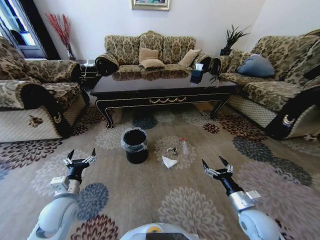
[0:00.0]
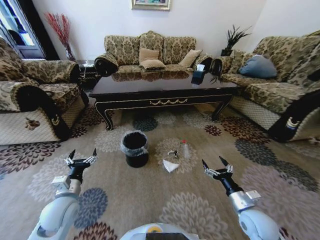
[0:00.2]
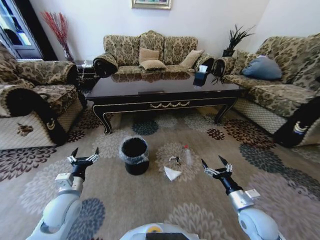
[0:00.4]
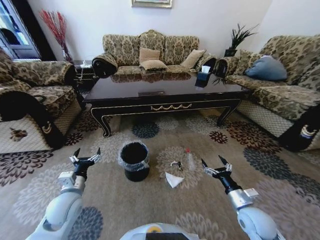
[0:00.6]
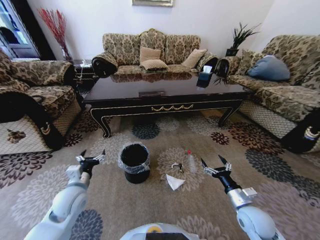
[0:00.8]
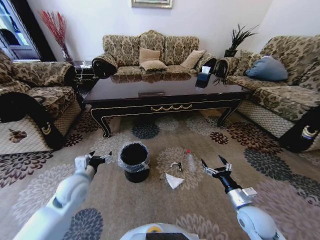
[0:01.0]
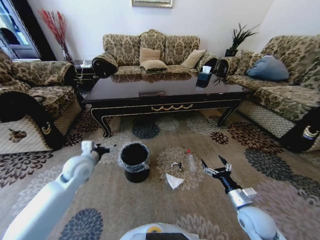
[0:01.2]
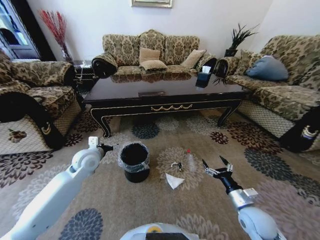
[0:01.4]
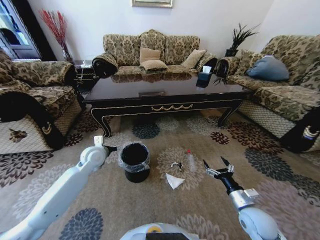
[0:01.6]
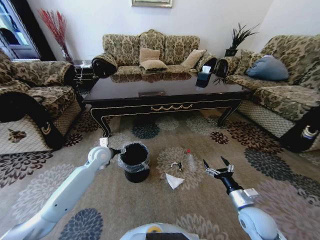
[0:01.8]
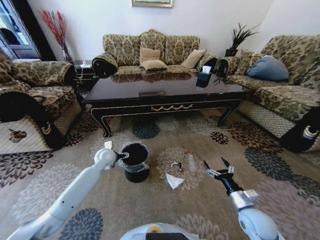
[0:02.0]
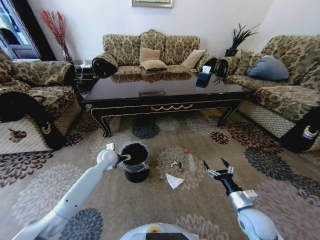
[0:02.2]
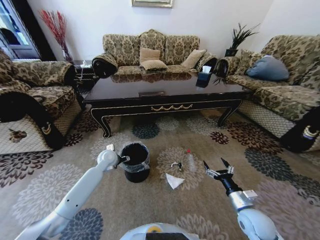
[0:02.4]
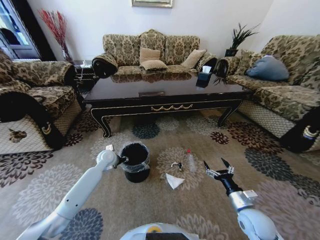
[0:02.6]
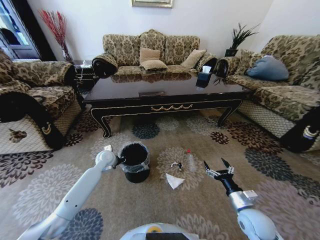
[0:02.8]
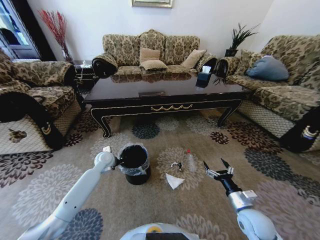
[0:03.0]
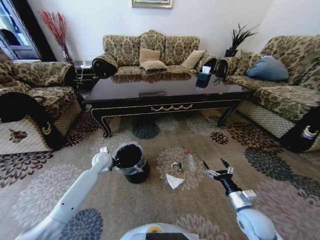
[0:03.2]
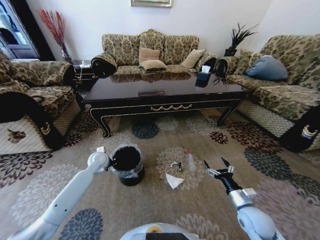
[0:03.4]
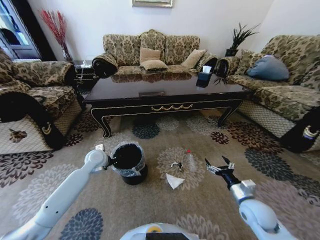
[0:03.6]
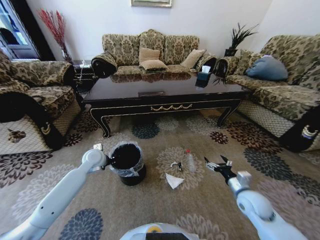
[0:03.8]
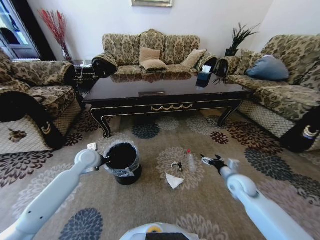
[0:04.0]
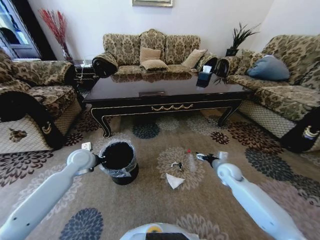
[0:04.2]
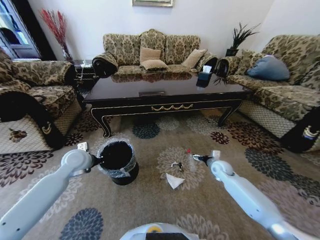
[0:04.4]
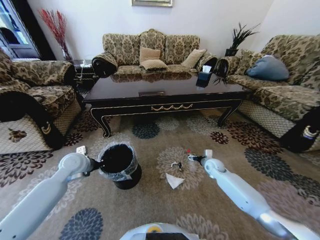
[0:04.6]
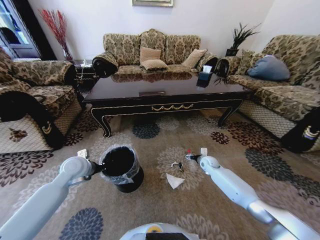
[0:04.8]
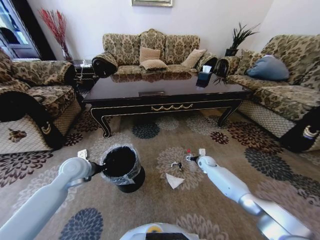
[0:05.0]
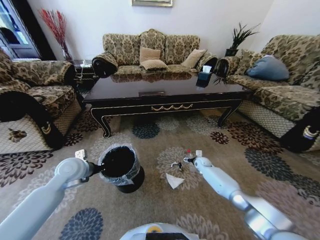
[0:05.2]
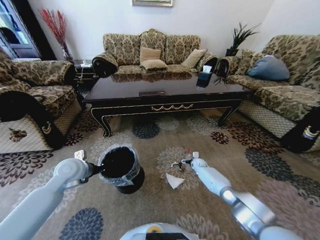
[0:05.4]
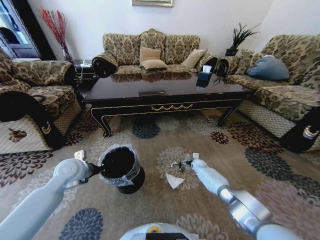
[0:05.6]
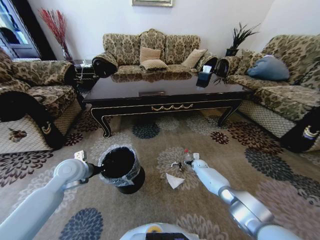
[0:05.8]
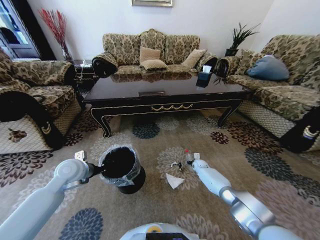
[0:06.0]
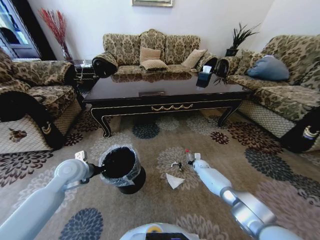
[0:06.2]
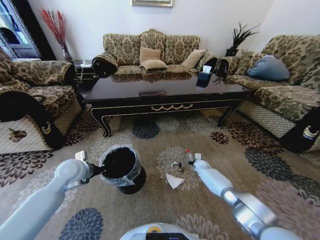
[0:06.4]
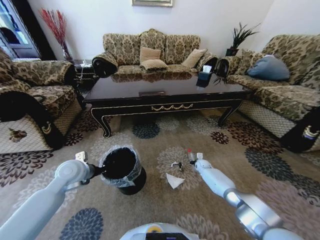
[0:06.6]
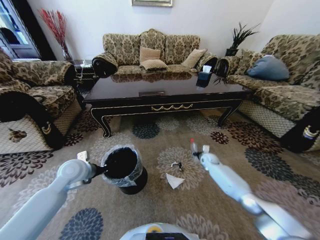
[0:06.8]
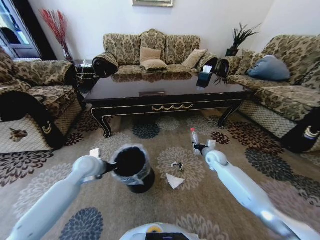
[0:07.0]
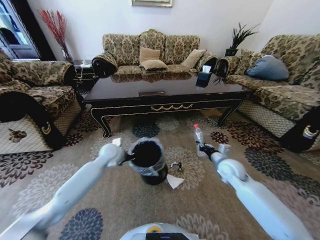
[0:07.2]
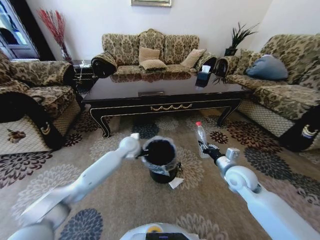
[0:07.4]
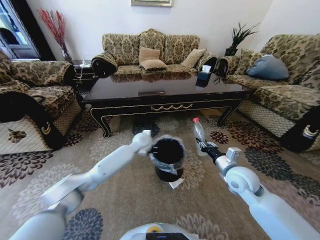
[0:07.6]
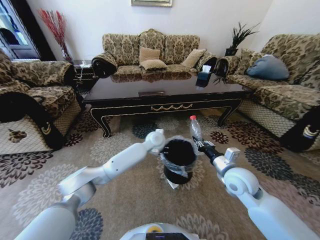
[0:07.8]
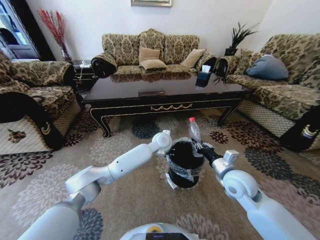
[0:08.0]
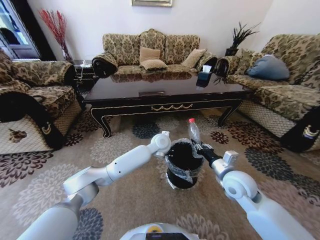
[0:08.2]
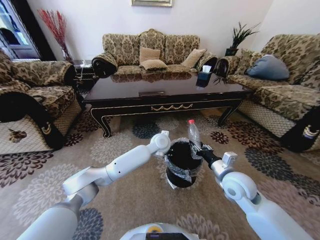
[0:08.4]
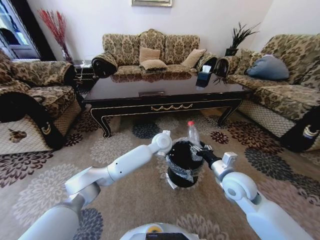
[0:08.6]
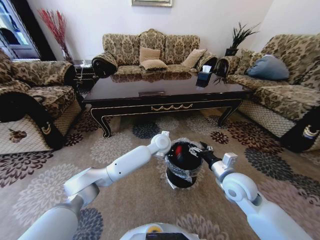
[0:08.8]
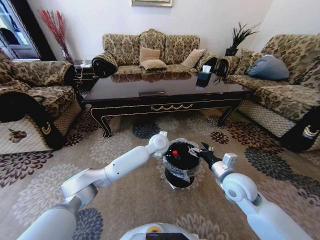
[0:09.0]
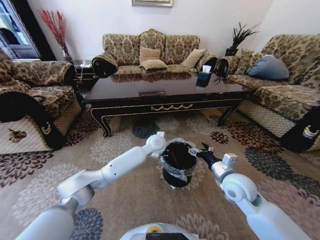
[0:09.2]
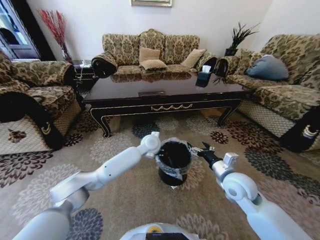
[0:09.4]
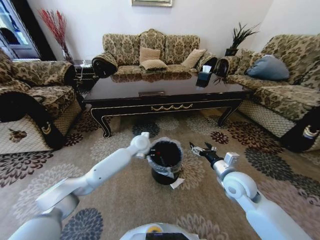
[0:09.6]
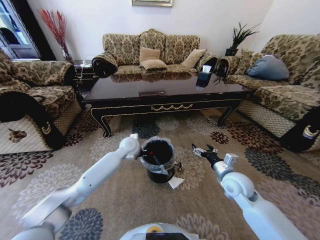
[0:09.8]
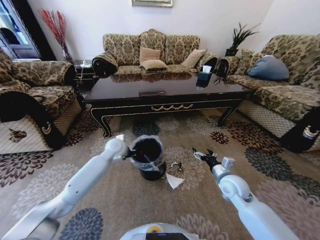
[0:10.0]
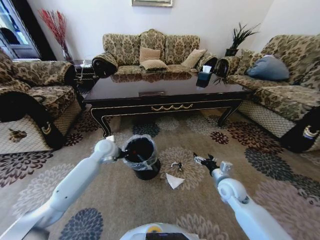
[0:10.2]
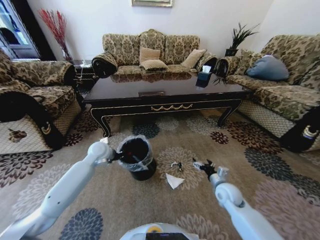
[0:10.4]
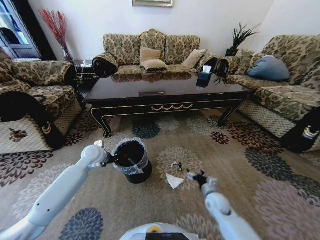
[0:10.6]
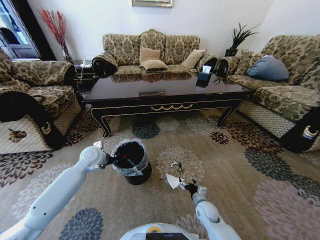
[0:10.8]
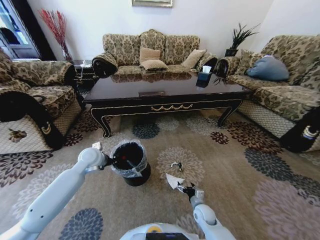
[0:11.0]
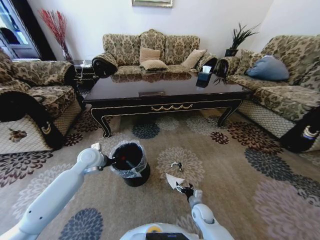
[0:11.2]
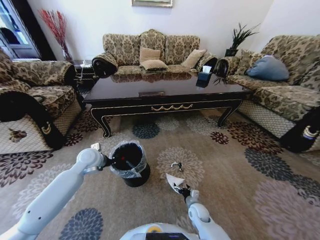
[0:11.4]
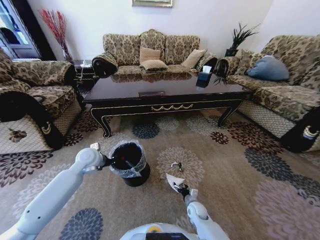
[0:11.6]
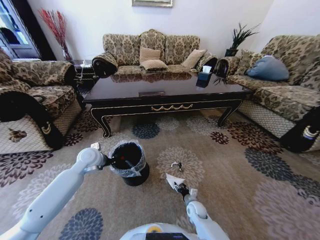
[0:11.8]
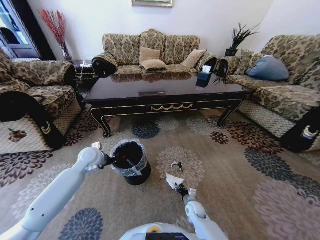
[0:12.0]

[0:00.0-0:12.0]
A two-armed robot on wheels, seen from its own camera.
Task of the whole recording: Move to the front of the table and pick up the trash from the floor, then place it into the trash bin.
0:00.0 to 0:01.6: The left gripper shifts about 20 cm forward.
0:01.6 to 0:03.0: The left gripper travels downward by some 10 cm, and closes.
0:03.0 to 0:04.4: The right gripper is displaced forward by some 25 cm, while the left gripper is displaced upward, backward and to the left by about 15 cm.
0:04.4 to 0:06.0: The right gripper shifts about 15 cm downward and forward, and closes up.
0:06.0 to 0:07.6: The left gripper moves to the right and forward, about 30 cm, while the right gripper travels upward and backward by some 35 cm.
0:07.6 to 0:09.0: The right gripper opens up; the left gripper goes about 10 cm to the right.
0:09.0 to 0:10.4: The left gripper is displaced to the left by approximately 30 cm; the right gripper is displaced downward by approximately 15 cm.
0:10.4 to 0:12.0: The right gripper is displaced downward and to the left by about 20 cm, and closes its fingers.

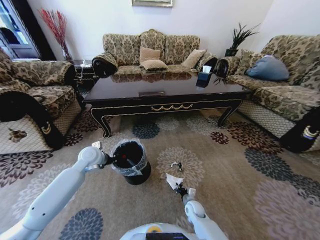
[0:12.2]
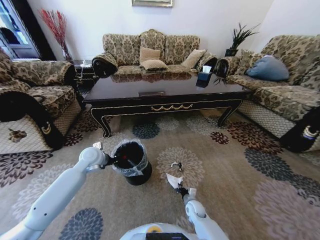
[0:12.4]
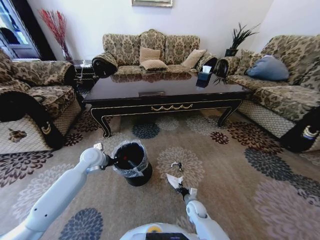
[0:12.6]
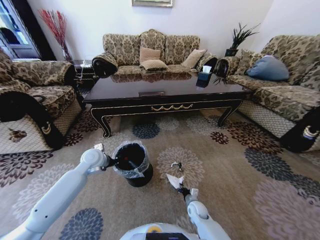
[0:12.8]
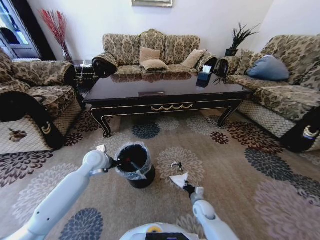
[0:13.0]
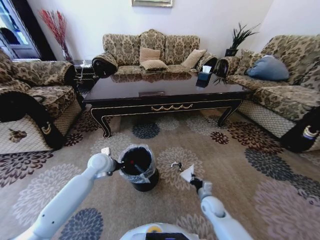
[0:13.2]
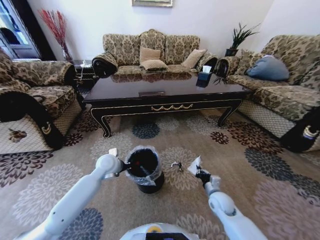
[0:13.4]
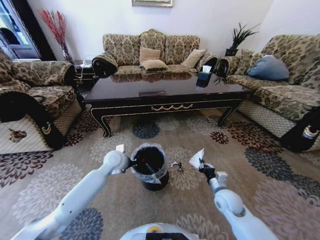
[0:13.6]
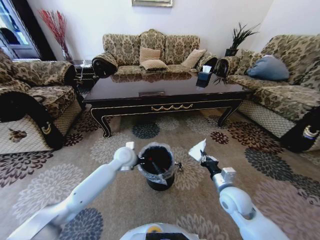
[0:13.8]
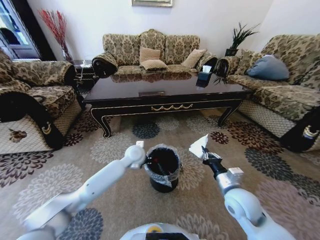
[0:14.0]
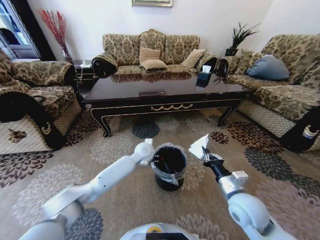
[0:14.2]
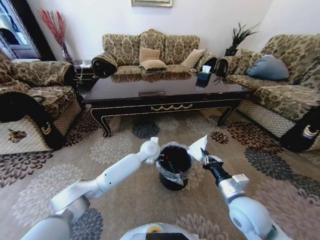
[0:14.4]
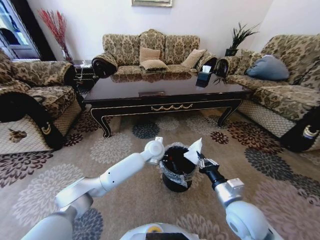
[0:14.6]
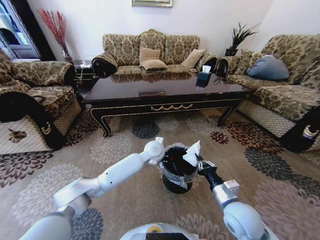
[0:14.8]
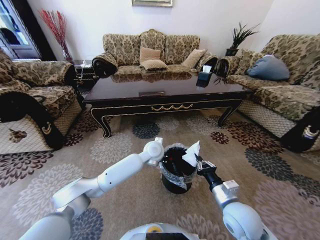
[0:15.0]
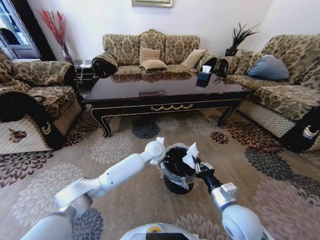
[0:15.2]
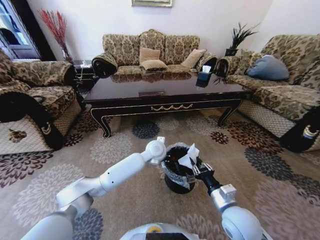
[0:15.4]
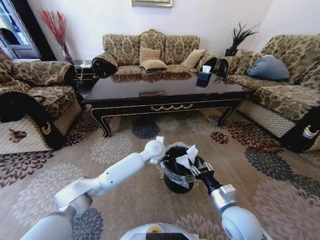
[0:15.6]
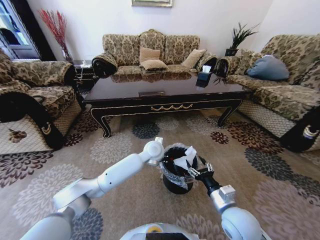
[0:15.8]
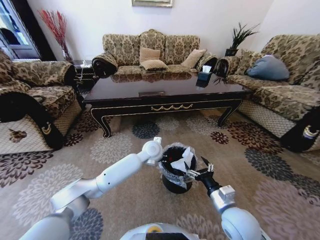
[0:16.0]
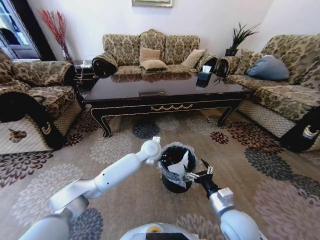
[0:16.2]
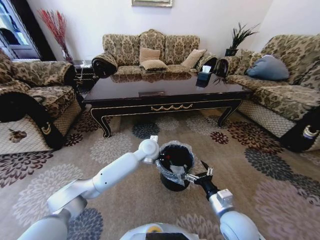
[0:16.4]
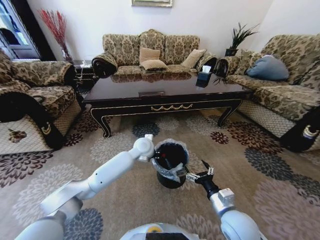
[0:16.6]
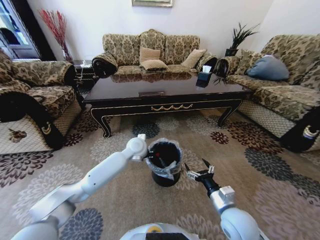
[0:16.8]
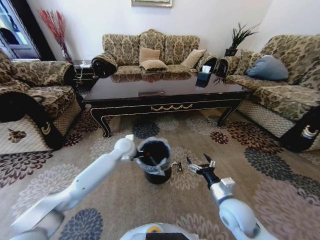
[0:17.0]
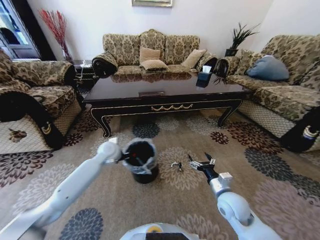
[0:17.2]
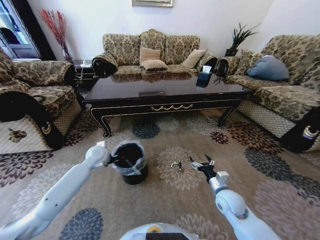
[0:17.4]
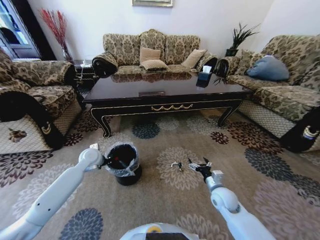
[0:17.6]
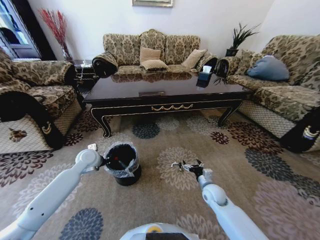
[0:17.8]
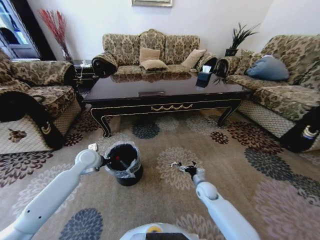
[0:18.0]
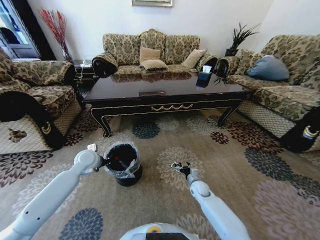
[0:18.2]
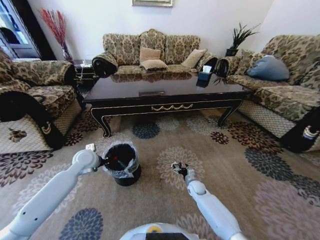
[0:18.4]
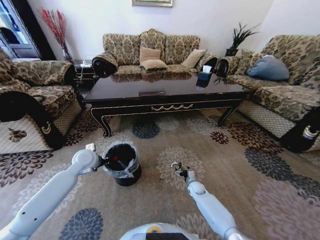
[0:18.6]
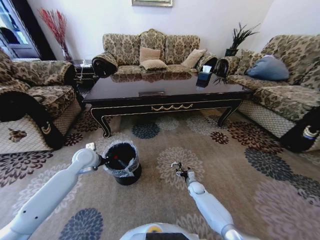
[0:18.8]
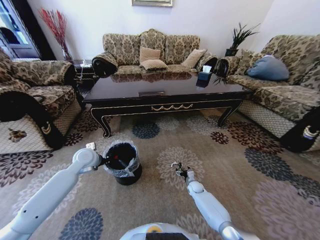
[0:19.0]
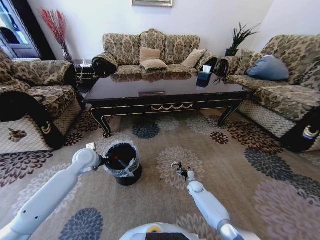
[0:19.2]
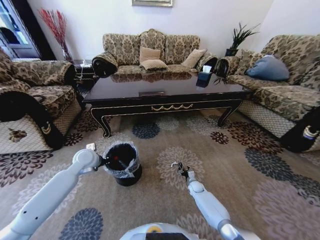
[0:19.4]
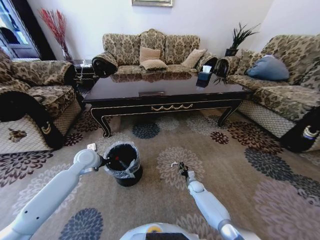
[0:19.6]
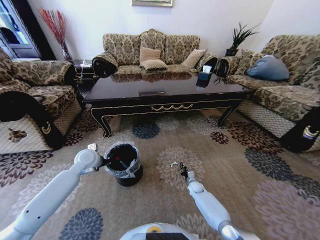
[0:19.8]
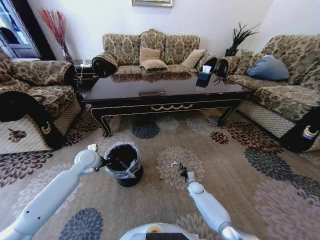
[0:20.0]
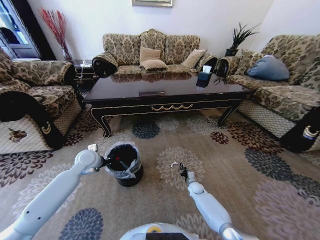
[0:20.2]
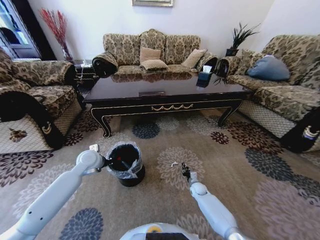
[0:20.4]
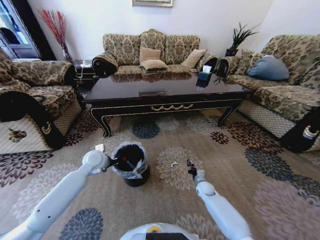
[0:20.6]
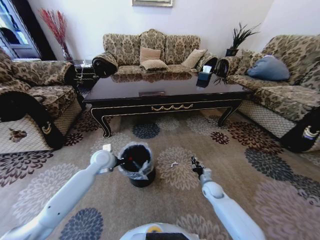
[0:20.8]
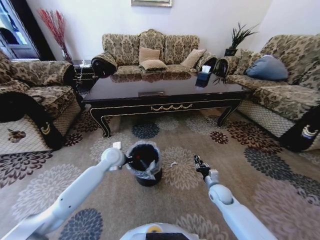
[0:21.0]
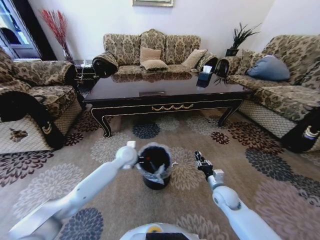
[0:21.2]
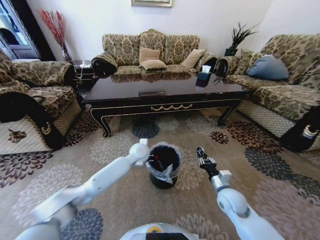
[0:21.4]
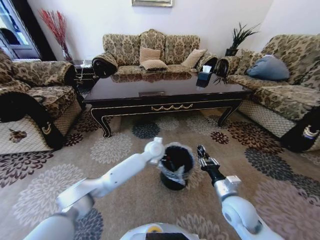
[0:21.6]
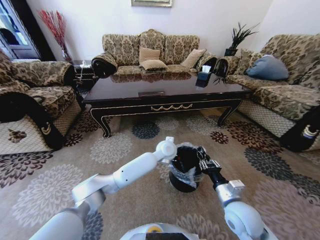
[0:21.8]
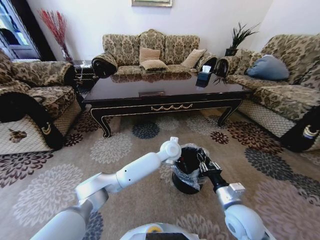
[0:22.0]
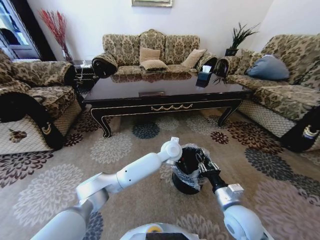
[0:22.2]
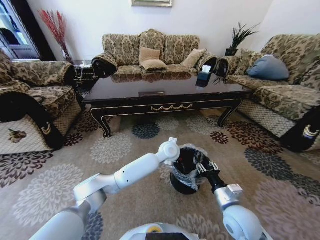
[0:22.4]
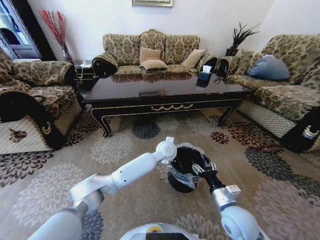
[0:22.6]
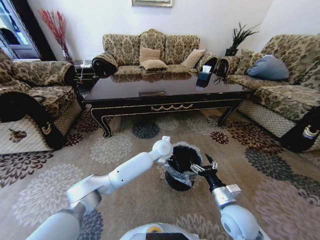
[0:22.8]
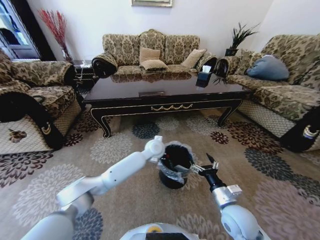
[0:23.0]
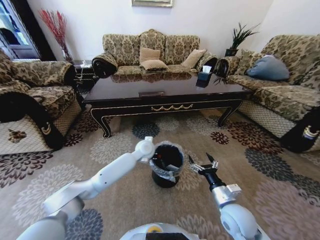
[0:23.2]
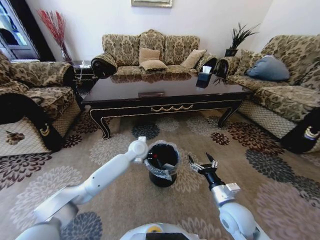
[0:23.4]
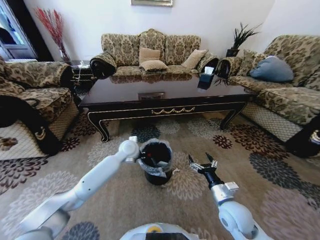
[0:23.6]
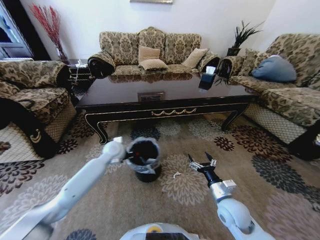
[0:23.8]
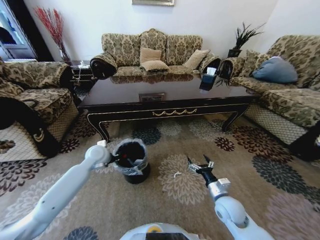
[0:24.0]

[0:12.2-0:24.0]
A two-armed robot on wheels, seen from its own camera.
Task of the whole recording: Move to the front of the table and pick up the trash from the floor, then place it into the trash bin.
0:12.2 to 0:13.6: The left gripper goes roughly 10 cm to the right; the right gripper heads upward and to the right, covering roughly 20 cm.
0:13.6 to 0:15.2: The right gripper is displaced upward and backward by about 10 cm. The left gripper goes some 20 cm to the right.
0:15.2 to 0:16.6: The left gripper travels to the left by about 5 cm; the right gripper opens up.
0:16.6 to 0:18.2: The left gripper shifts some 25 cm to the left. The right gripper is displaced downward and forward by roughly 25 cm.
0:18.2 to 0:19.6: The right gripper travels downward by about 10 cm, and closes its fingers.
0:19.6 to 0:21.0: The left gripper heads to the right, covering some 10 cm, while the right gripper shifts about 15 cm upward and backward.
0:21.0 to 0:22.6: The left gripper goes roughly 25 cm to the right; the right gripper heads upward, backward and to the left, covering about 20 cm.
0:22.6 to 0:24.0: The left gripper goes some 30 cm to the left. The right gripper shifts by about 5 cm, and opens up.
